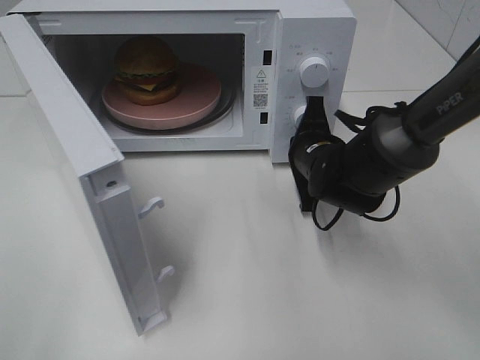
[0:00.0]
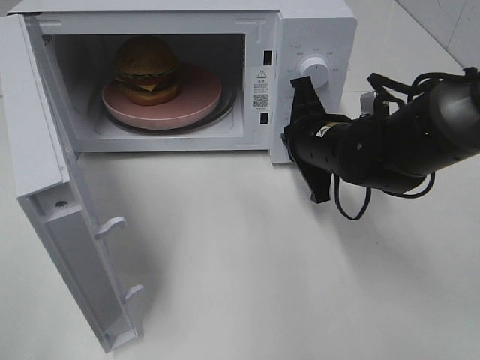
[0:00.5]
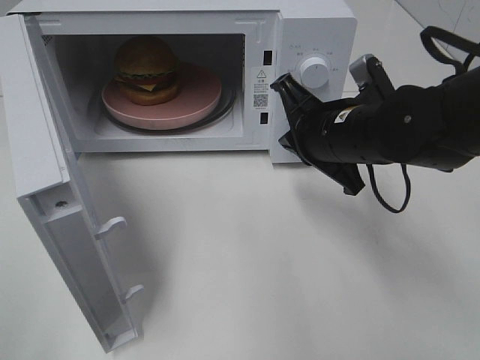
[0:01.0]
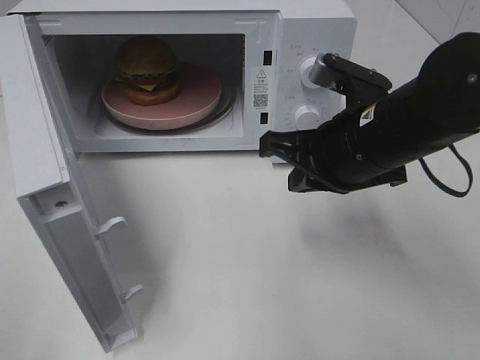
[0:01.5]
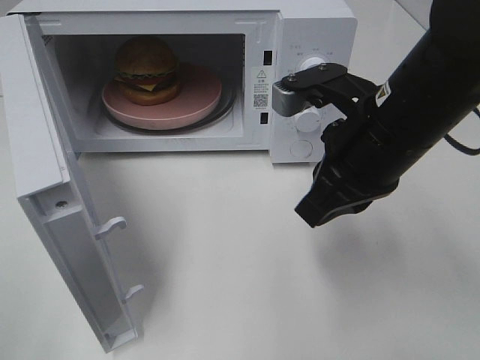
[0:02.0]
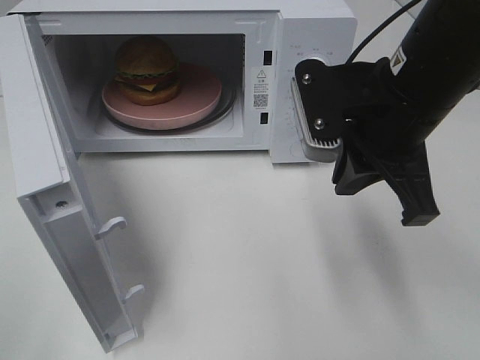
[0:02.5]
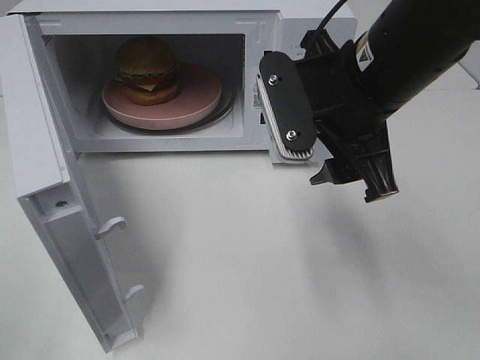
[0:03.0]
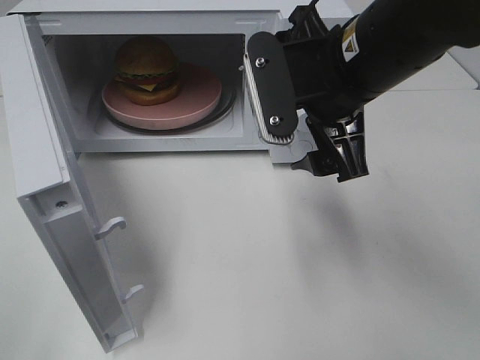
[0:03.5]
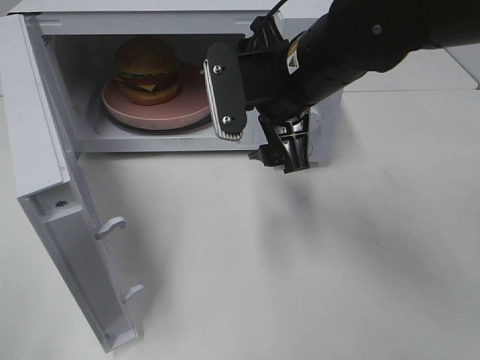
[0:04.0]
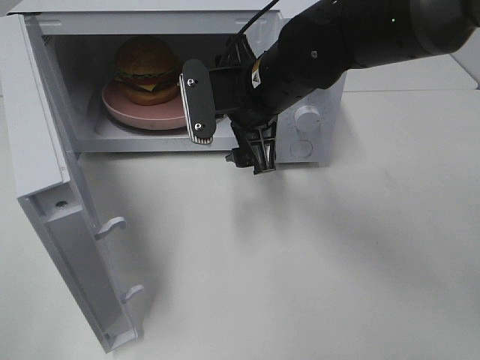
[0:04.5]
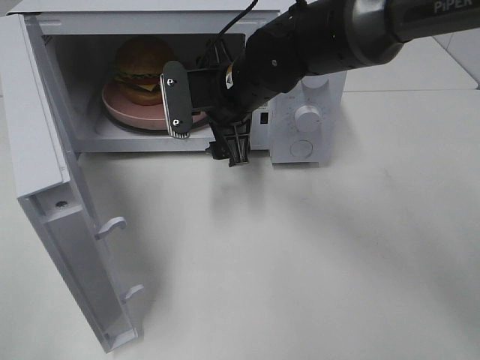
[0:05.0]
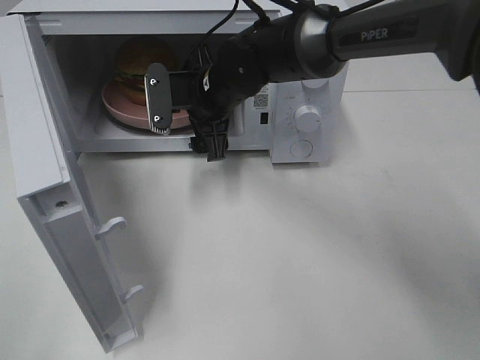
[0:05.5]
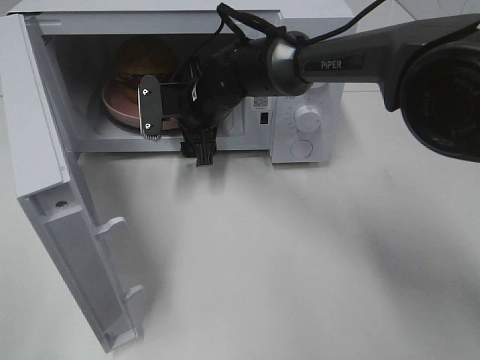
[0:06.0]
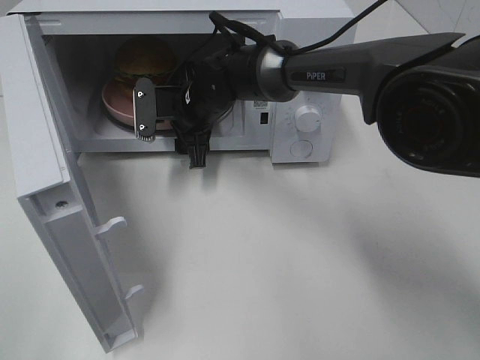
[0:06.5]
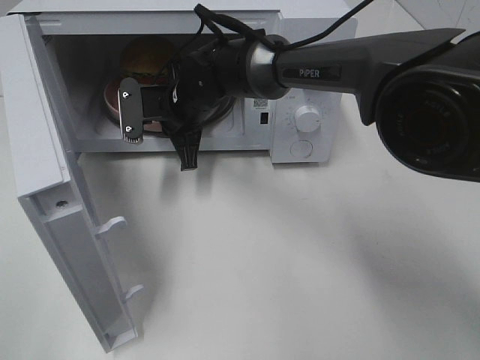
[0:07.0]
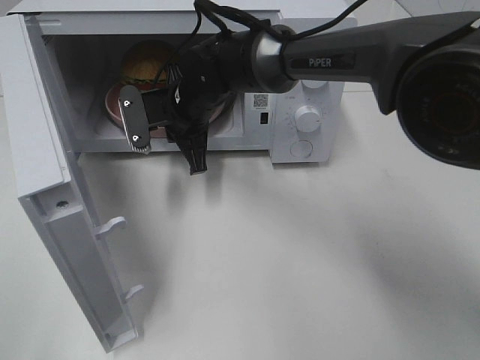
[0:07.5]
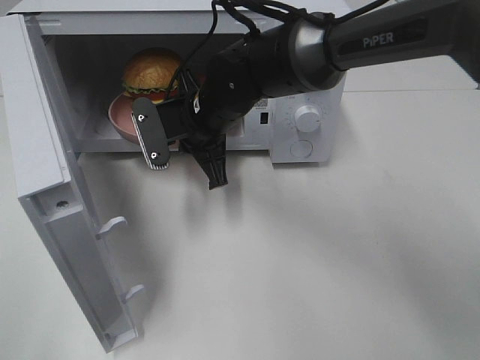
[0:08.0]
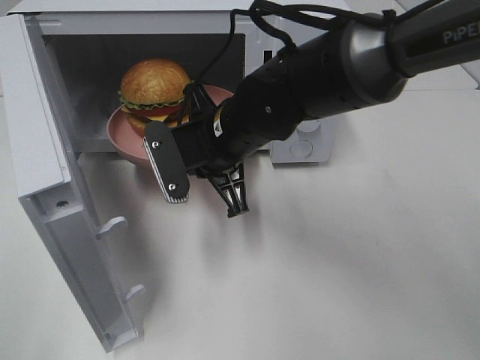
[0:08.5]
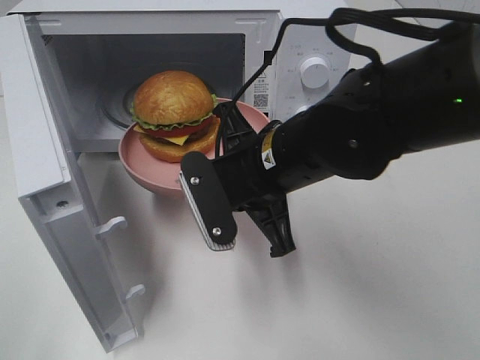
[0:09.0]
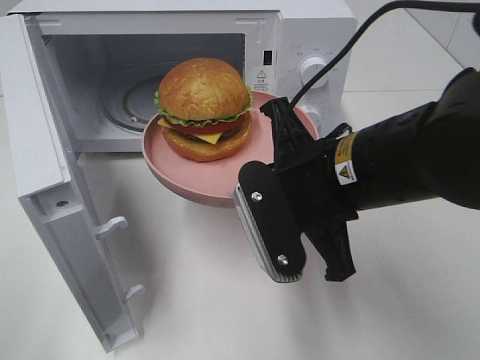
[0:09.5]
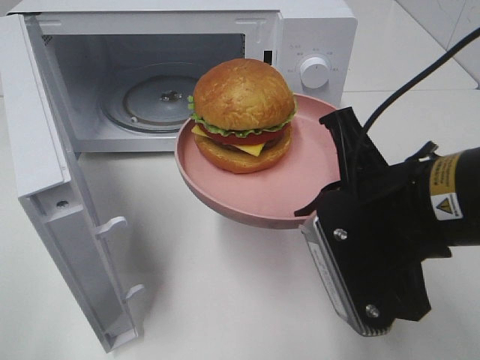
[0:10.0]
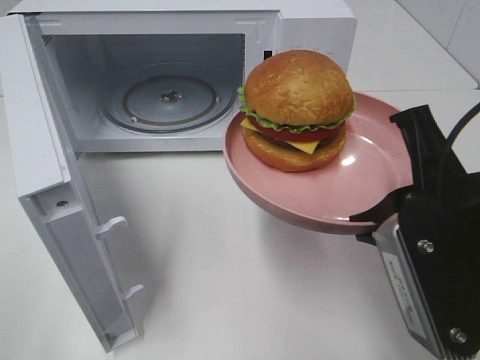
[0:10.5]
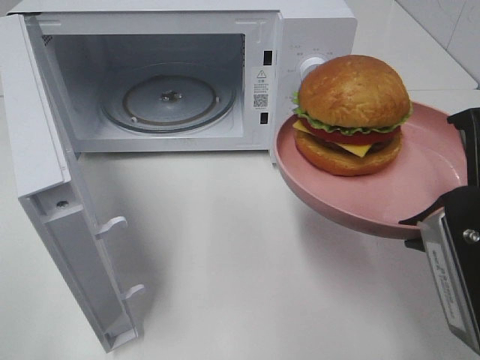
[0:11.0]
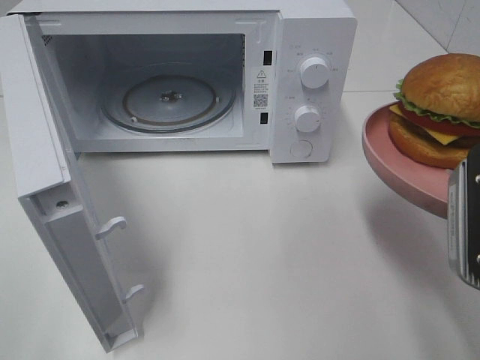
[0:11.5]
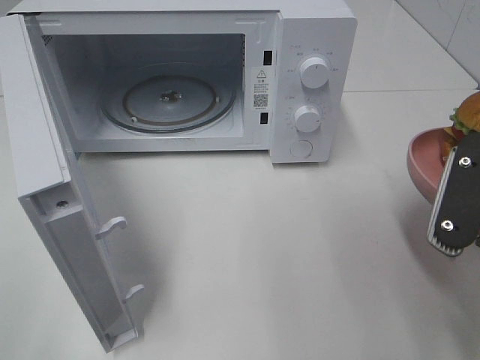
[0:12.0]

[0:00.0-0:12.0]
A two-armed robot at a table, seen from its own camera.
Task of the whole recording: Heat the burger.
Step, 0:00.5 to 0:07.0: Right hand: grab the plate with the hamburger.
0:00.0 to 0:02.0: The right gripper goes about 20 cm upward and backward.
0:02.0 to 0:04.0: The right gripper goes about 10 cm forward and to the left, and opens its fingers.
0:04.0 to 0:06.0: The right gripper shifts about 20 cm forward, downward and to the left.
0:06.0 to 0:08.0: The right gripper heads backward, covering approximately 5 cm, and closes its fingers.
0:08.0 to 0:10.0: The right gripper heads backward and to the right, covering some 25 cm.
0:10.0 to 0:12.0: The right gripper shifts about 10 cm to the right.

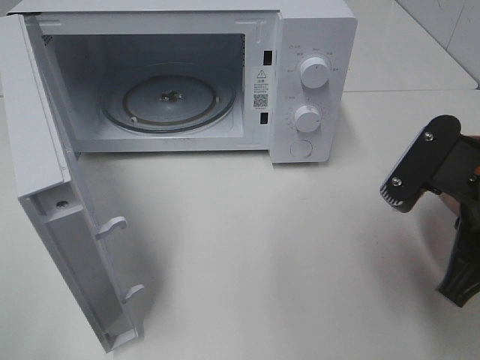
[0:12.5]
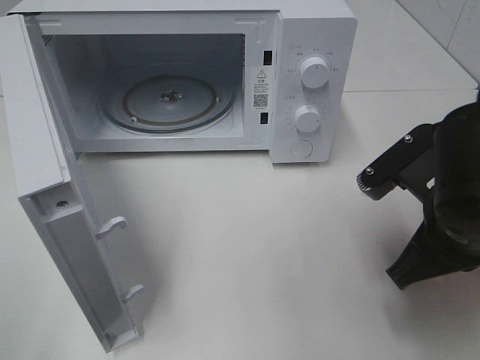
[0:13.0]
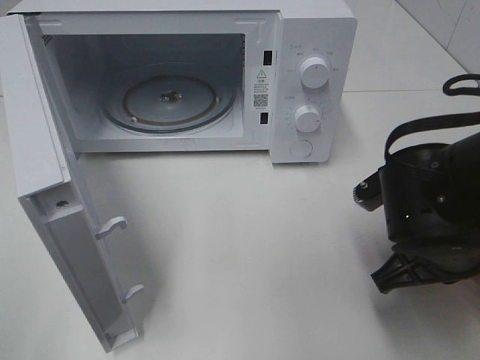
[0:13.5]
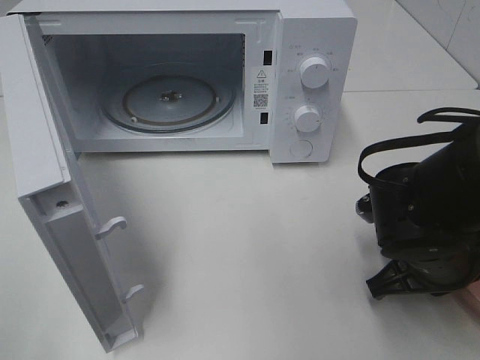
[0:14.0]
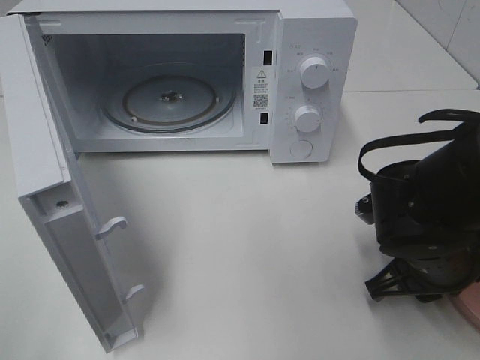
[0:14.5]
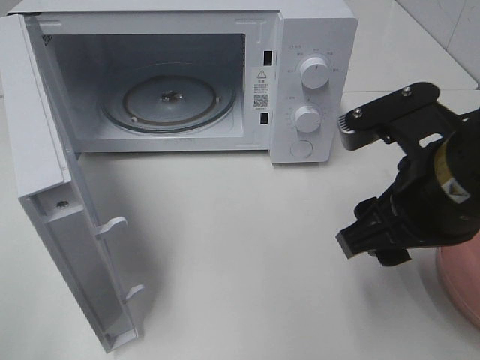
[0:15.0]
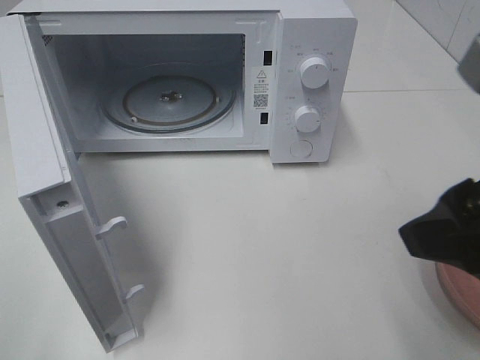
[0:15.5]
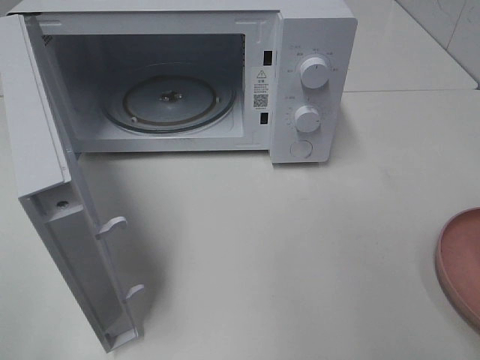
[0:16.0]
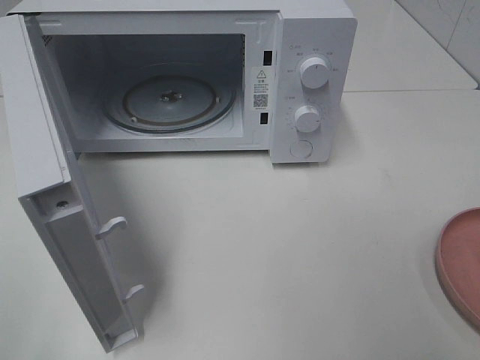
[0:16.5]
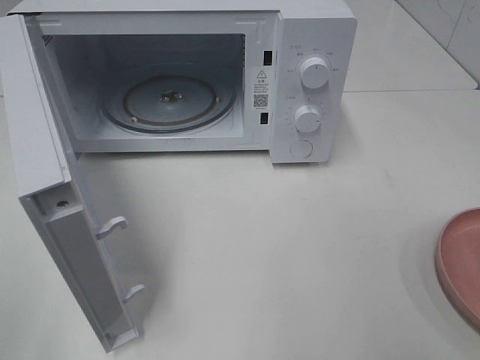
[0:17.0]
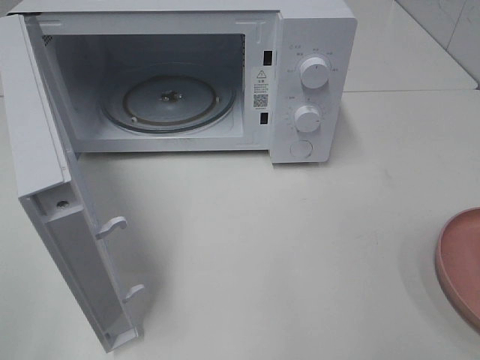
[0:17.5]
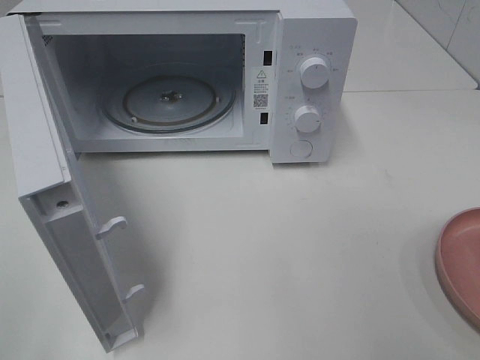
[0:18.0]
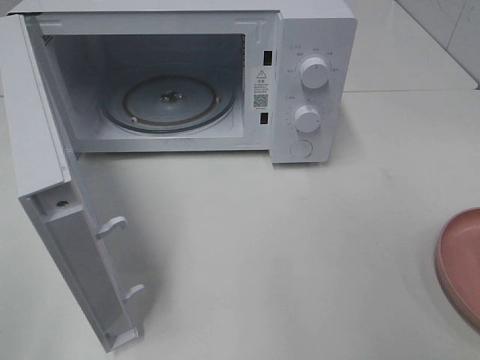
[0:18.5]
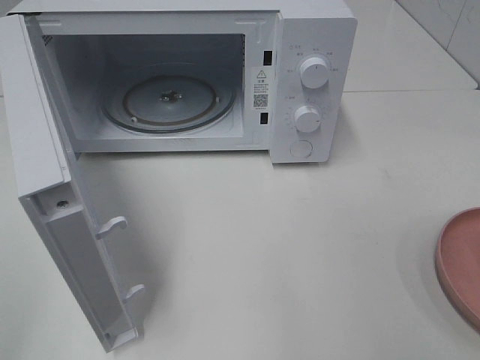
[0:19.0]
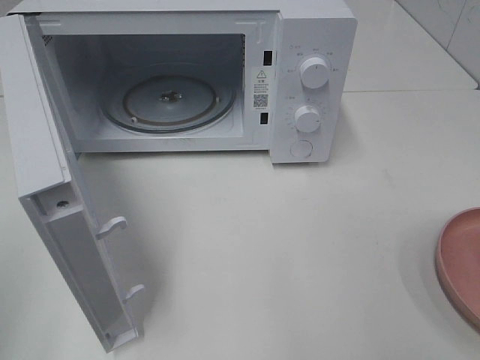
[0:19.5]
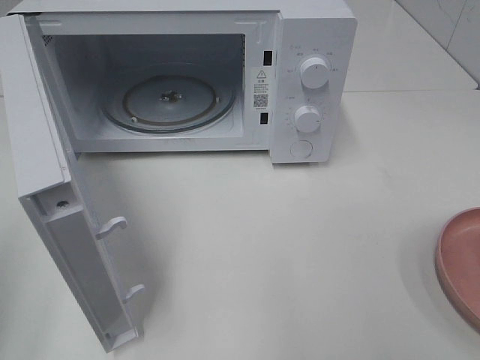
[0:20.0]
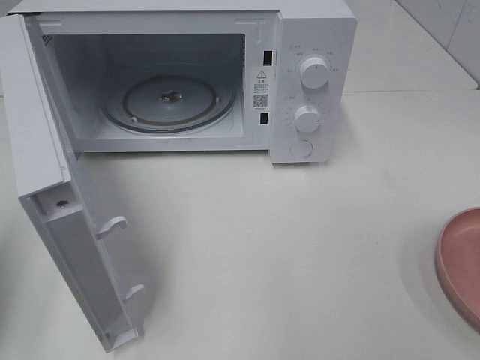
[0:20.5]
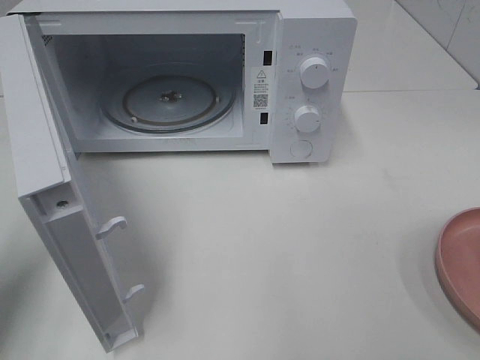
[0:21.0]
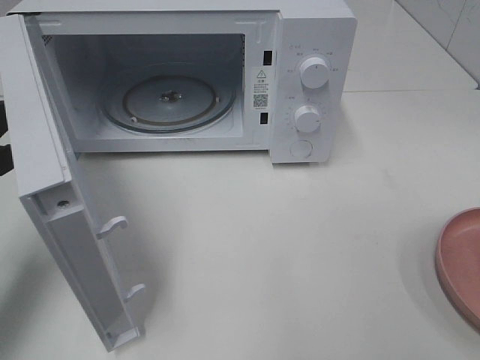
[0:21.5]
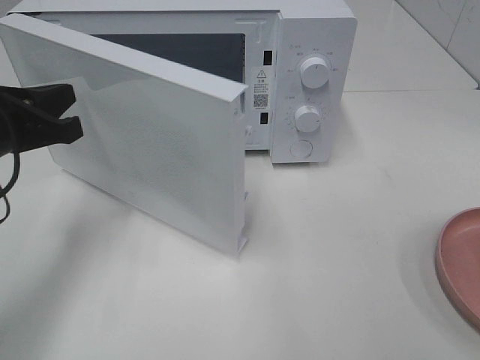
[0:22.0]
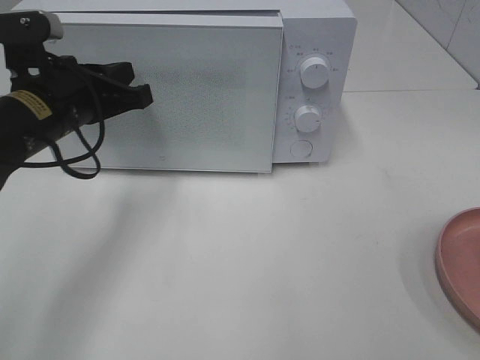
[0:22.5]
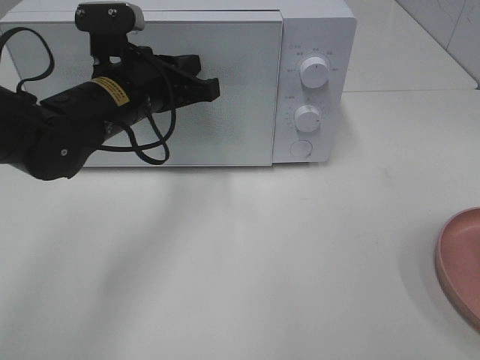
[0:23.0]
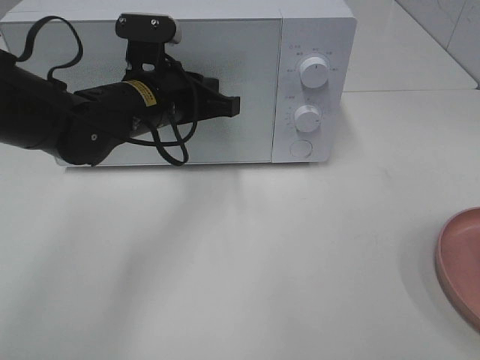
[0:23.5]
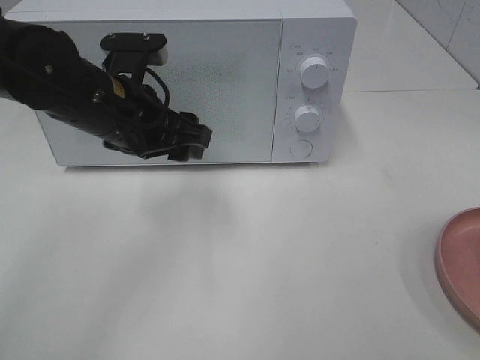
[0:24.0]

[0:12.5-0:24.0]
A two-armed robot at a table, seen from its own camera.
Task of the whole recording: Heat the burger.
Step, 0:12.5 to 0:14.5: Right hand: place the plate on the table.
Step, 0:15.0 to 0:23.5: Left hand: close the microwave door.
0:12.5 to 0:14.5: The right gripper moves downward, about 10 cm, and opens up.
0:14.5 to 0:16.5: The right gripper heads upward, backward and to the right, covering some 30 cm, and opens up.
0:20.0 to 0:22.0: The left gripper heads forward and to the right, covering approximately 20 cm.
0:22.0 to 0:24.0: The left gripper shifts some 10 cm to the right, and opens up.

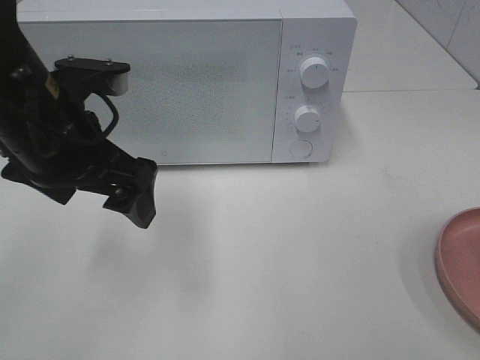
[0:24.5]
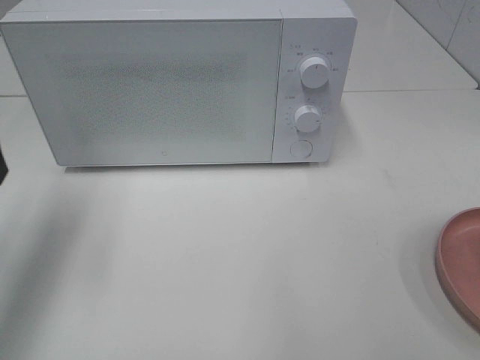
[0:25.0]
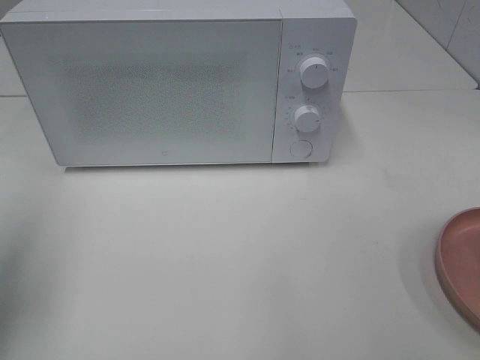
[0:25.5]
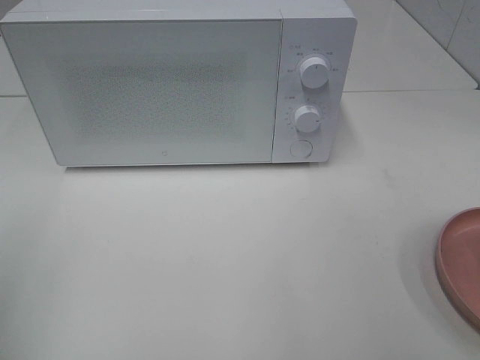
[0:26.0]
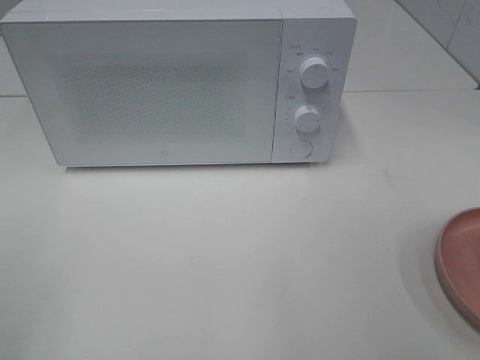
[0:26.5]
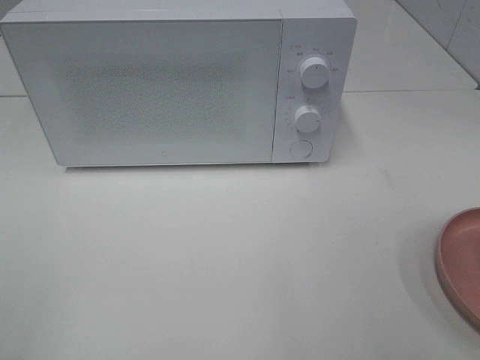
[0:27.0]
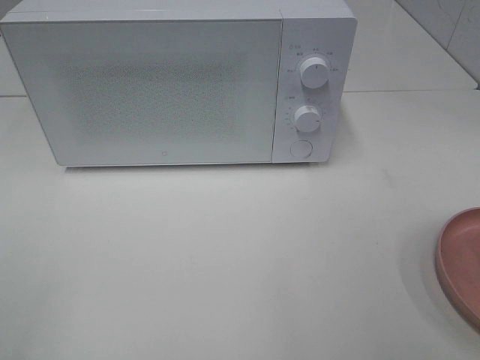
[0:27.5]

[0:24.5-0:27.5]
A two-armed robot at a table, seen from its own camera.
Task of the whole recording: Heat the burger.
0:24.5 to 0:26.0: The left gripper travels to the left and backward by about 25 cm.
